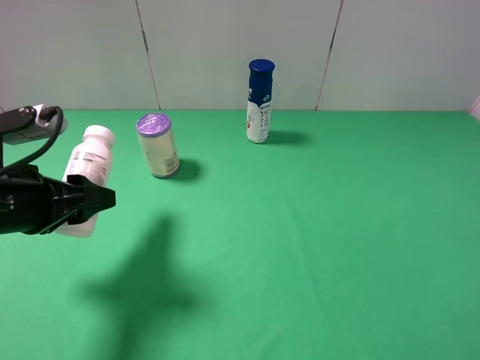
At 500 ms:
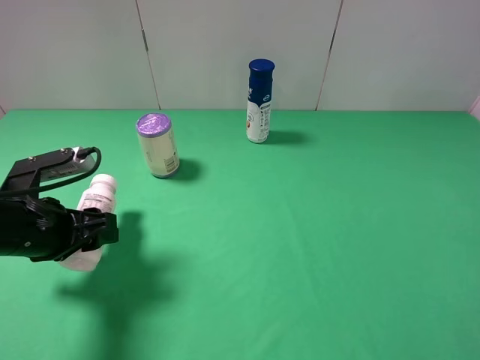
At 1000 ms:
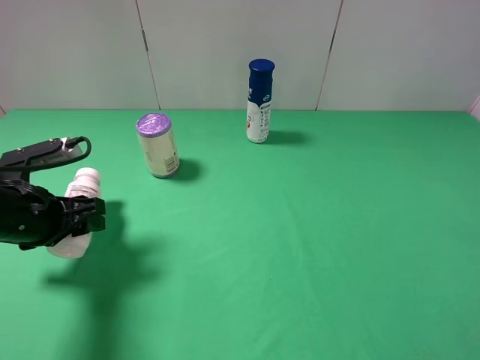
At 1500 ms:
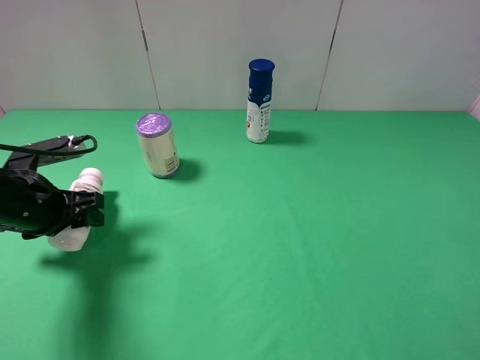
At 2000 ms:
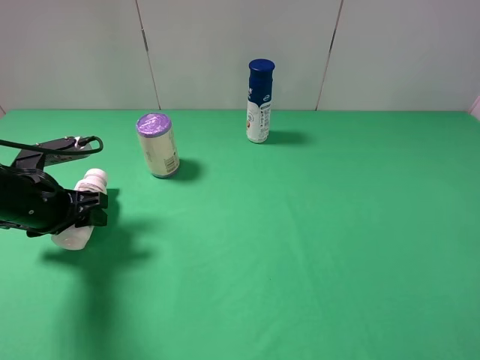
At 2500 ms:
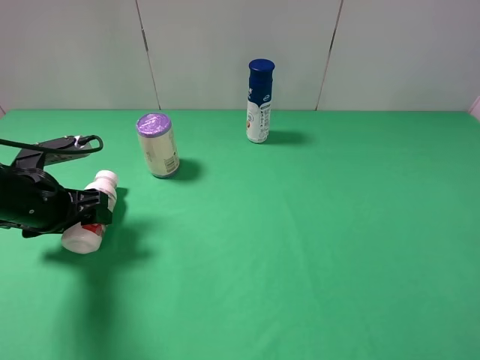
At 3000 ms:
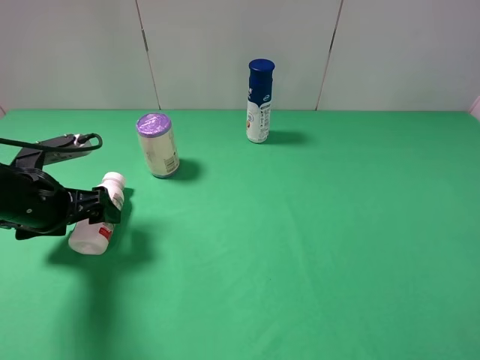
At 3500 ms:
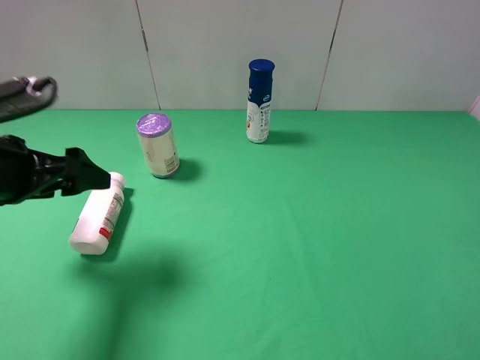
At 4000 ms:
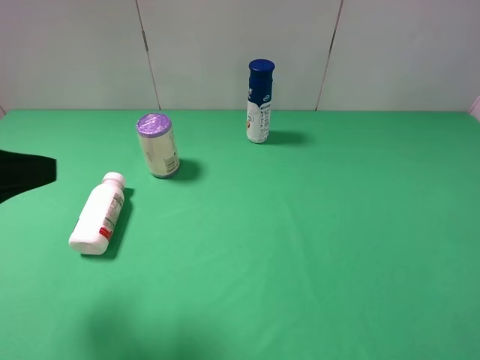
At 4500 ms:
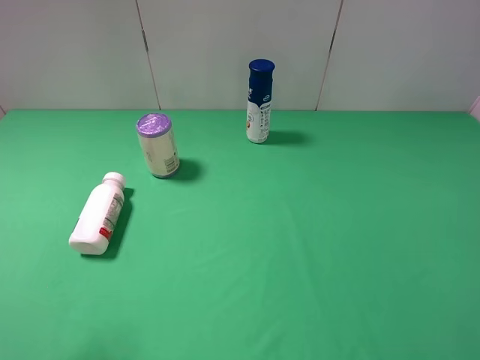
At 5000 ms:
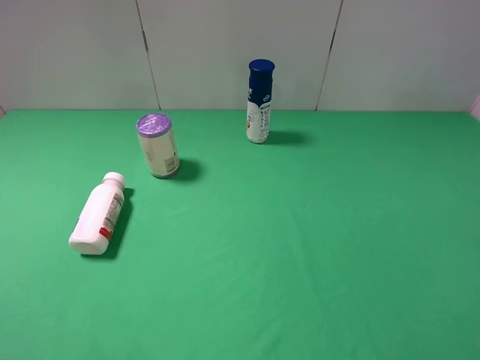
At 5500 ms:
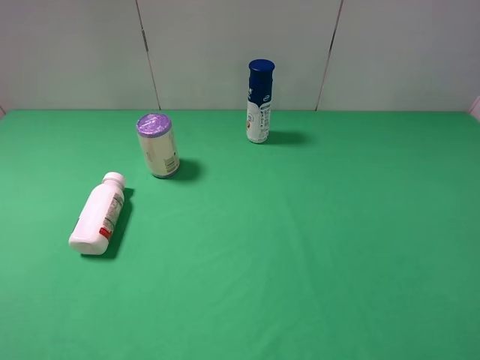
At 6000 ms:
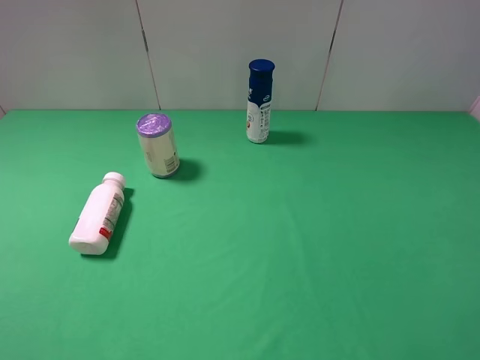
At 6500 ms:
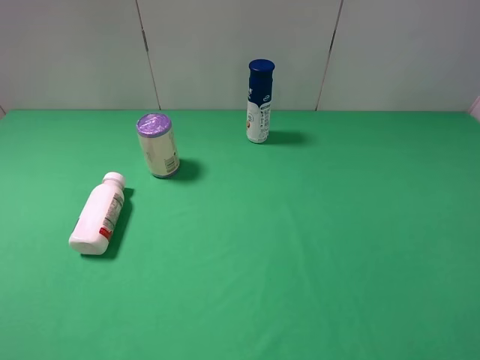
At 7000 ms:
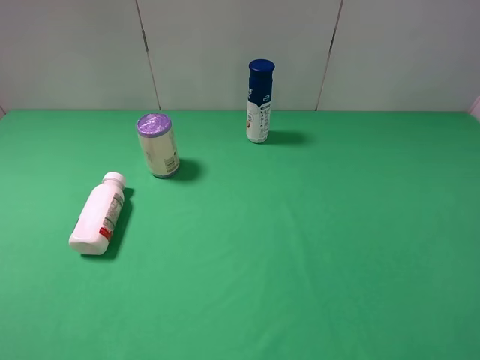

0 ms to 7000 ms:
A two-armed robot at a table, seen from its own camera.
Task of the whole recording: use the right gripper to pick up the item and transfer it from the right gripper to the left gripper.
Step, 0 ms to 2500 ms: The left gripper places milk on the left side of the table.
0 ms to 2000 ms: The left gripper moves forward and downward, approximately 10 cm.
2000 ms to 3500 ms: The left gripper shifts about 10 cm upward, and opens up.
3500 ms to 5000 ms: The left gripper travels backward and upward by approximately 20 cm.
